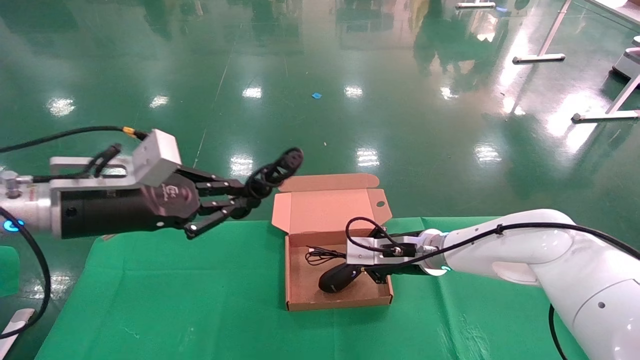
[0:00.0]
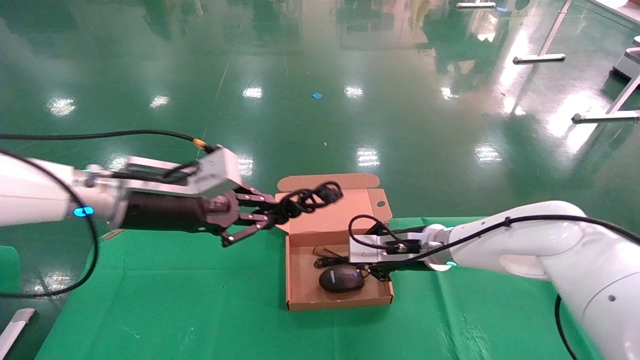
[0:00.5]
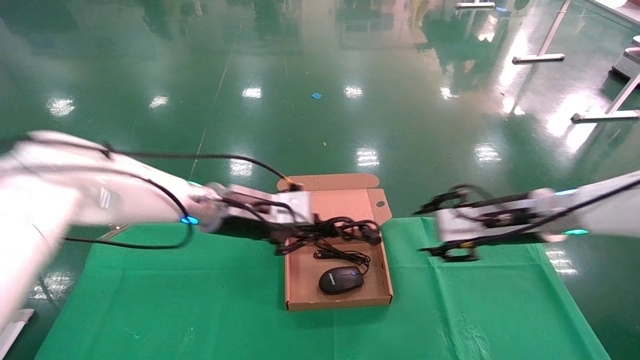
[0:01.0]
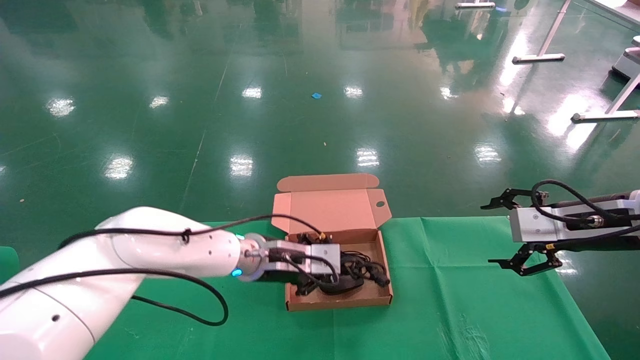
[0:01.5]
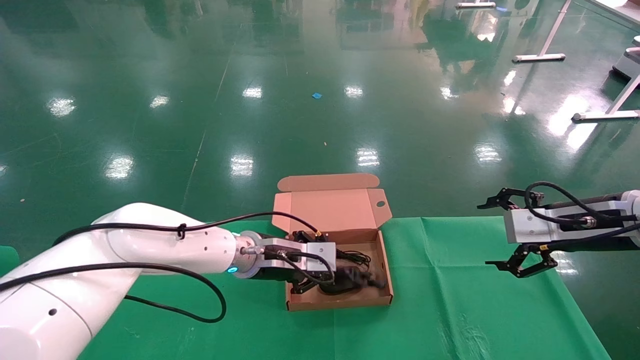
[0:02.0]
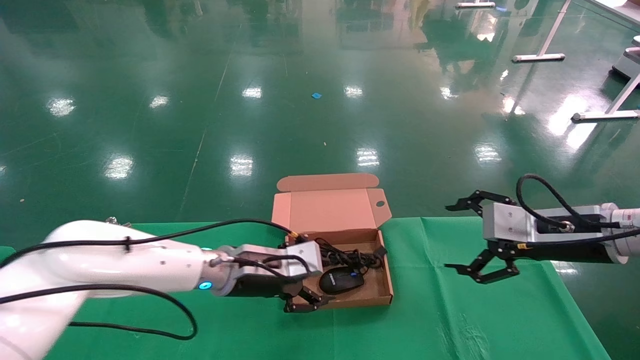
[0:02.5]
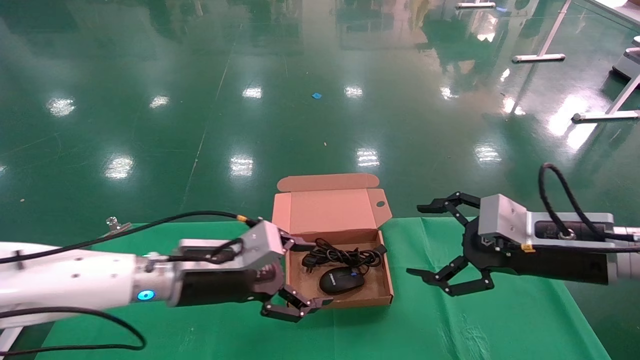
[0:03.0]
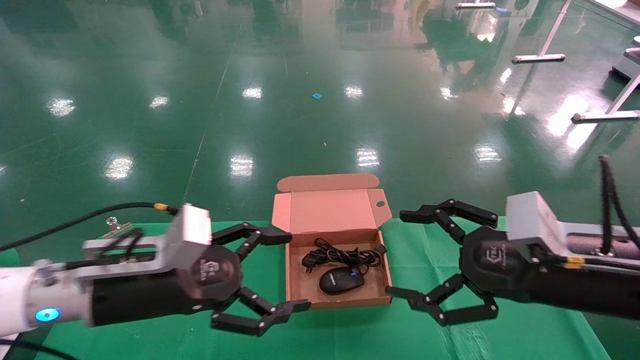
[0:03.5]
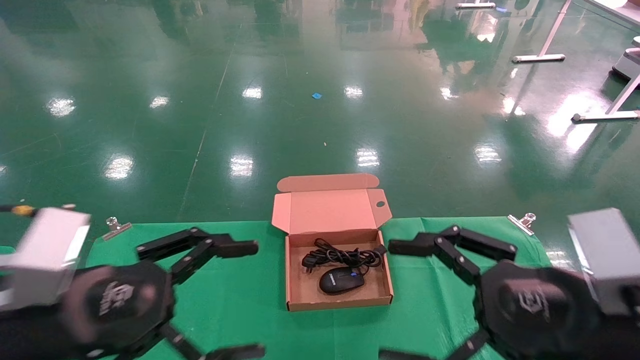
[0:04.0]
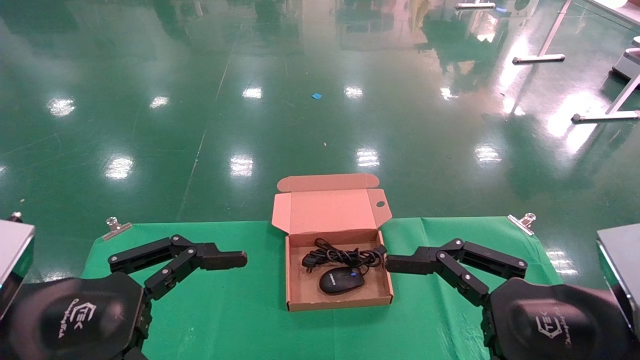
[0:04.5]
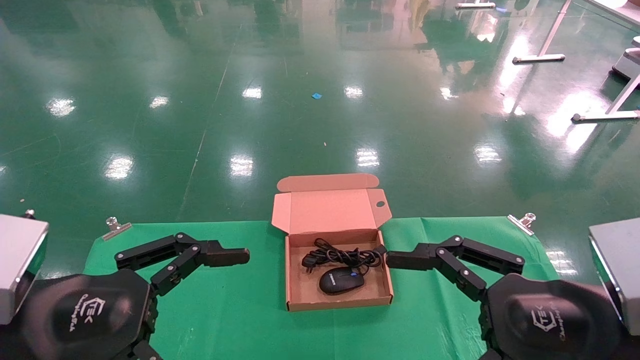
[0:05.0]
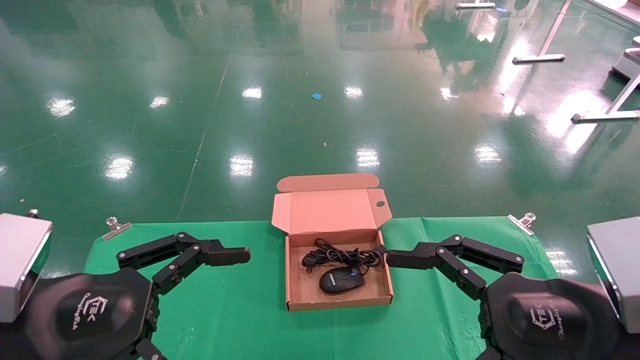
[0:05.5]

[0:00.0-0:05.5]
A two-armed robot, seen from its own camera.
0:00.0 to 0:02.0: The right gripper heads to the right, backward and upward, covering roughly 25 cm, and opens; the left gripper heads to the right, downward and forward, covering about 25 cm.
0:02.0 to 0:03.5: The grippers both shift backward and to the left by roughly 15 cm. The left gripper opens.
0:03.5 to 0:05.5: The grippers both shift backward by roughly 10 cm.
